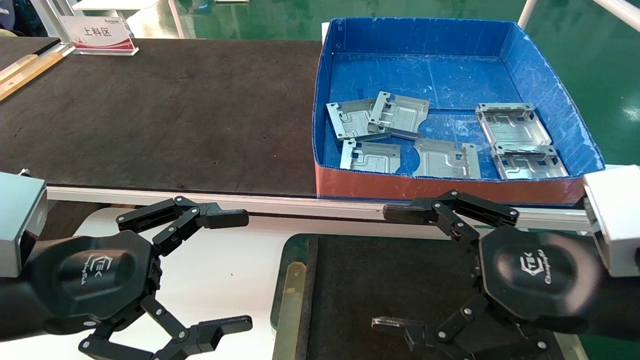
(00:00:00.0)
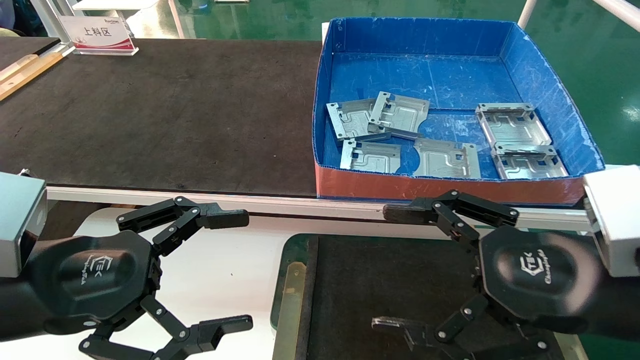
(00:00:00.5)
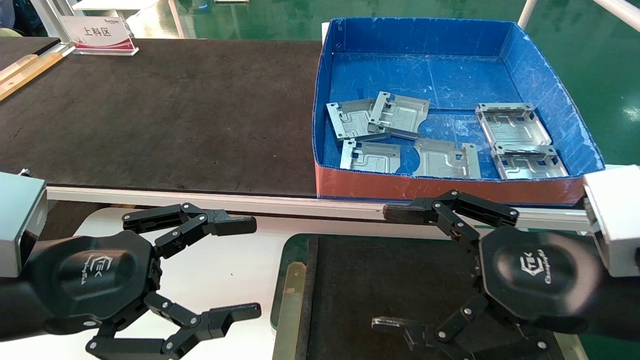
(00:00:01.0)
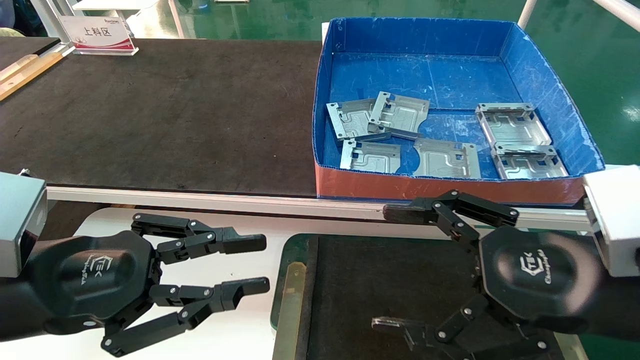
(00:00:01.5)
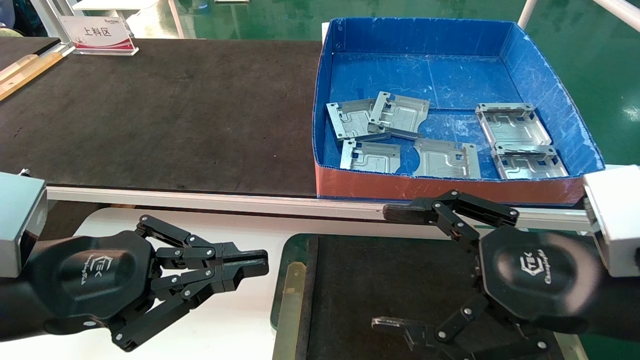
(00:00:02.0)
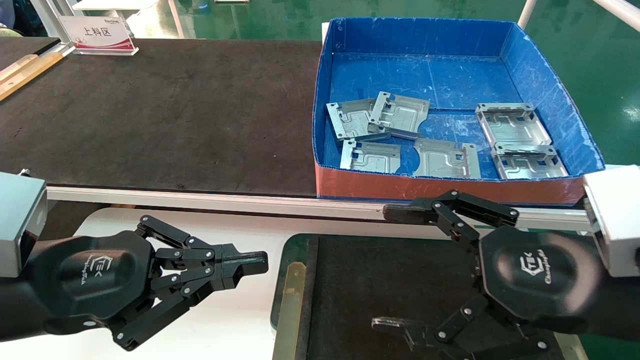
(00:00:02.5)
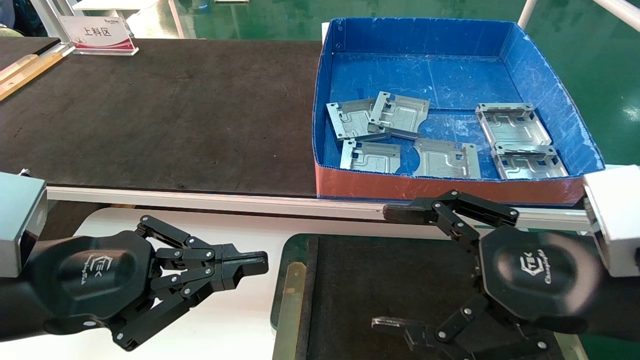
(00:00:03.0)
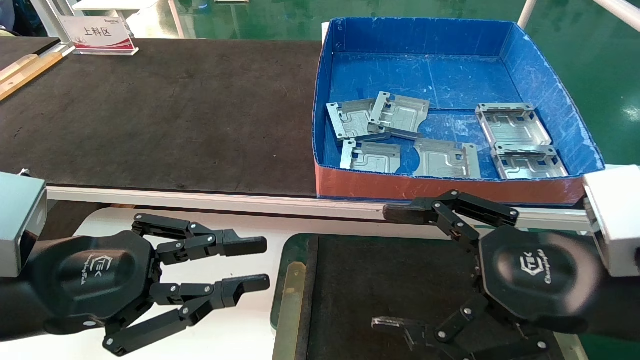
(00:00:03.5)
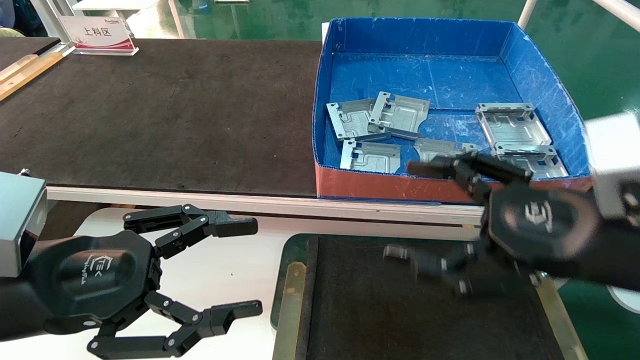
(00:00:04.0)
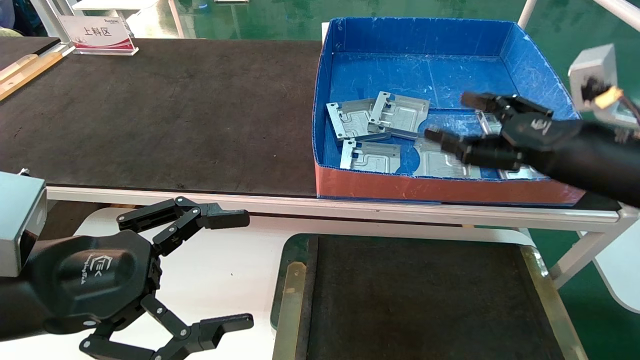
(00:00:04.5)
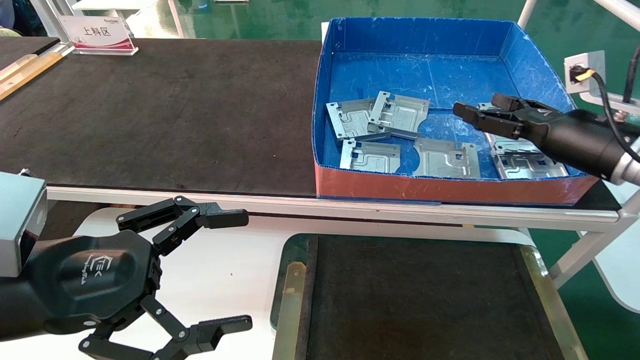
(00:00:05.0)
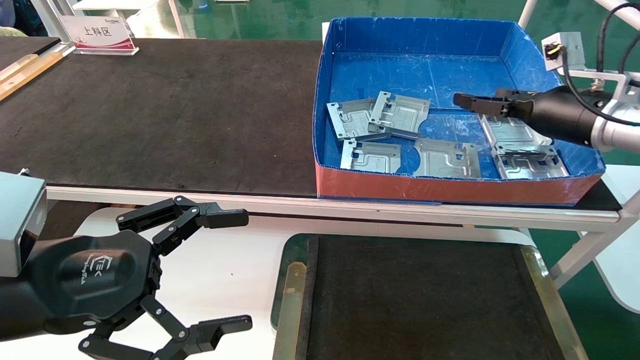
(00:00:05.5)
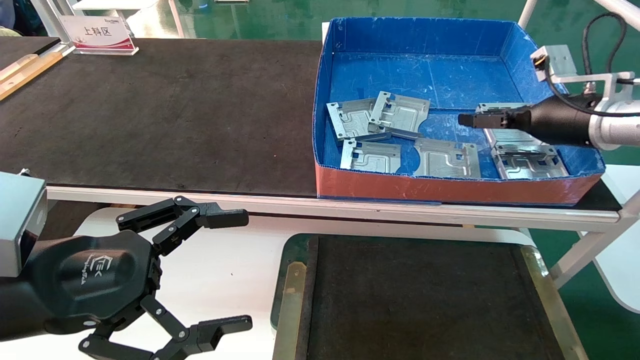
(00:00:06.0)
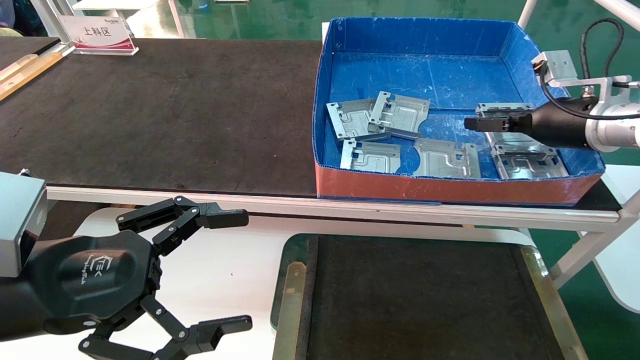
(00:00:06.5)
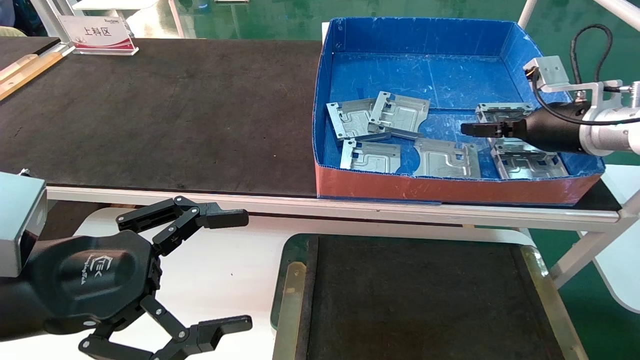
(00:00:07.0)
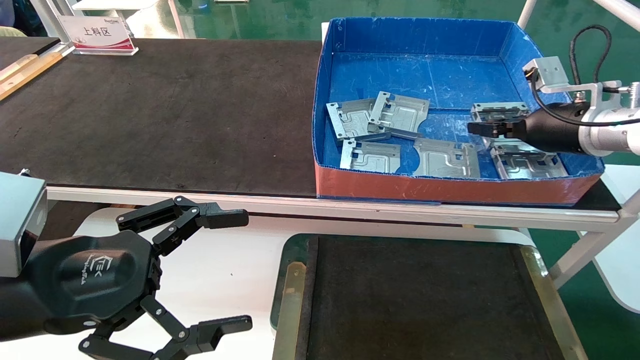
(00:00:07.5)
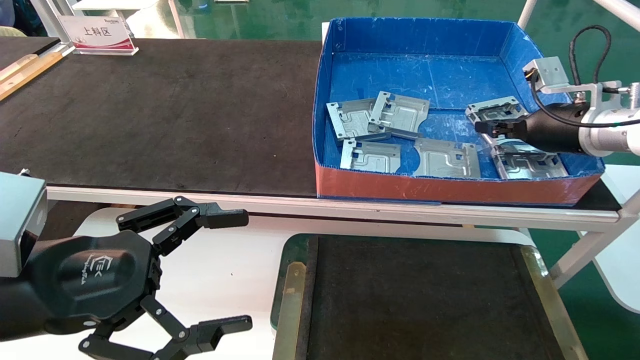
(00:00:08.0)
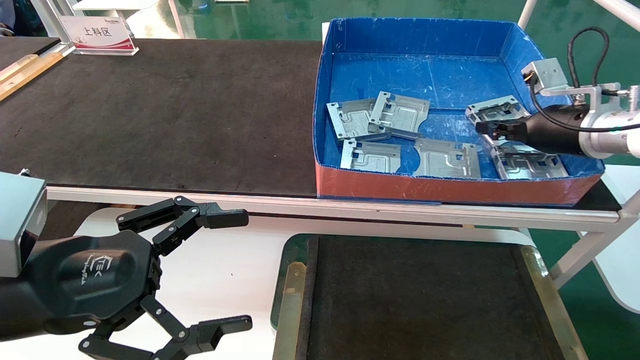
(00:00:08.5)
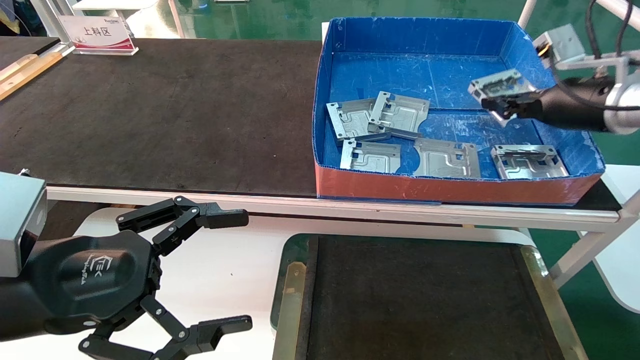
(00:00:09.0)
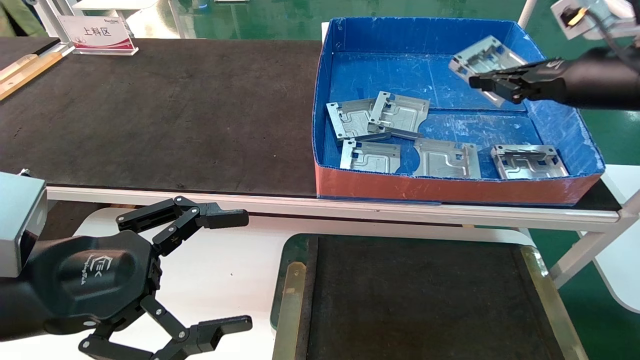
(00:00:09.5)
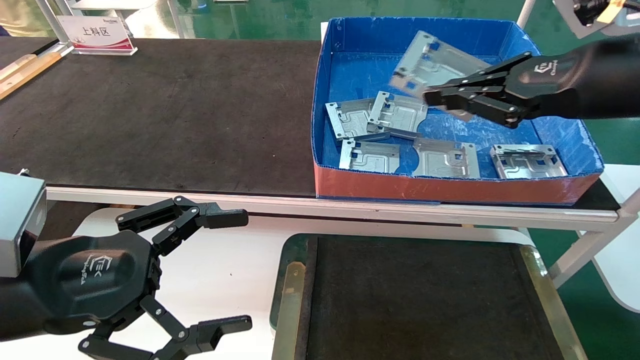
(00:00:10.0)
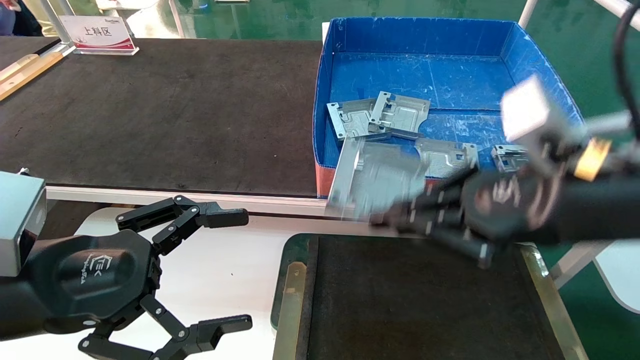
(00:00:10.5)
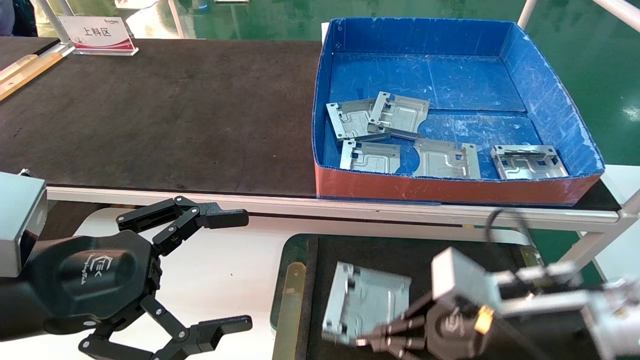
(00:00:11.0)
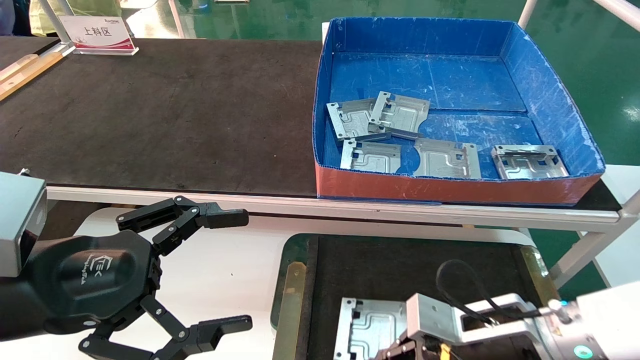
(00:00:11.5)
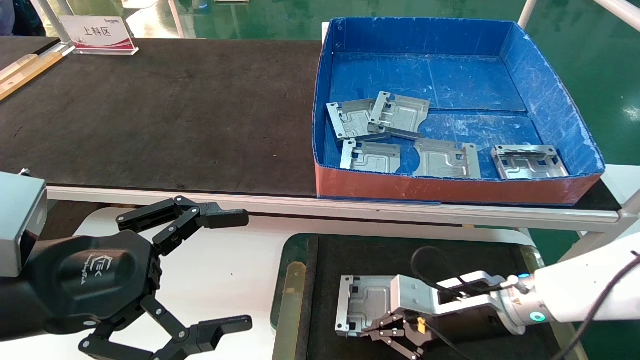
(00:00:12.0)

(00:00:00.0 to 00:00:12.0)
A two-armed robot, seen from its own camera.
Task of the whole recording: pick up parts and place them into a black container.
Step, 00:00:04.5 - 00:00:07.5: Pick up the hard drive bracket from the feeding area.
00:00:00.0 - 00:00:02.0: The left gripper closes its fingers.
00:00:02.0 - 00:00:04.0: The left gripper opens up.
00:00:04.0 - 00:00:06.0: The left gripper opens up. The right gripper moves forward and to the right, about 25 cm.
00:00:06.0 - 00:00:08.0: The right gripper closes.
00:00:08.0 - 00:00:10.0: The right gripper shifts about 20 cm backward and upward.
00:00:10.0 - 00:00:12.0: The right gripper travels downward by about 30 cm.

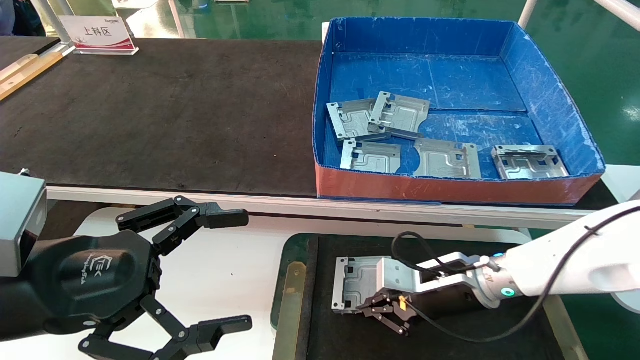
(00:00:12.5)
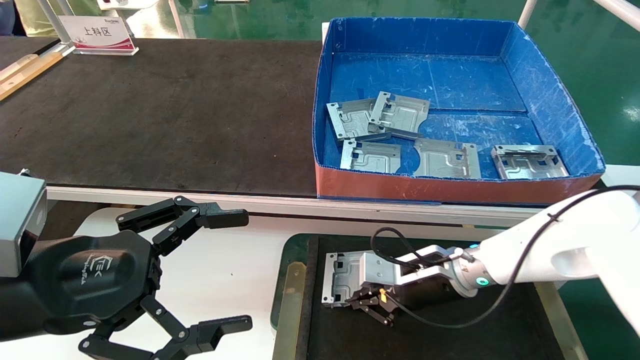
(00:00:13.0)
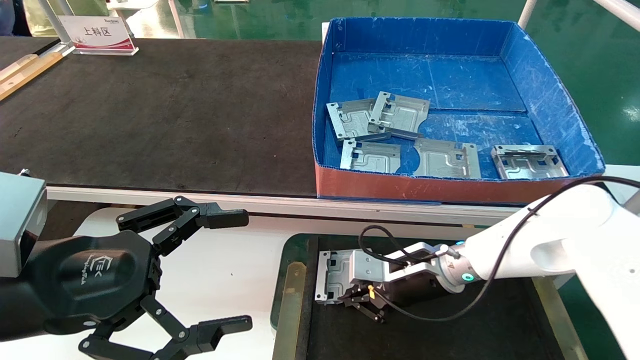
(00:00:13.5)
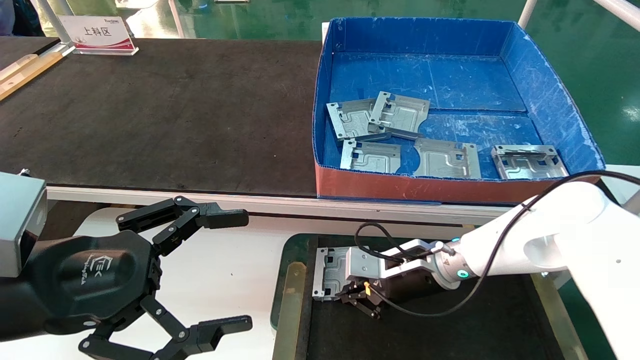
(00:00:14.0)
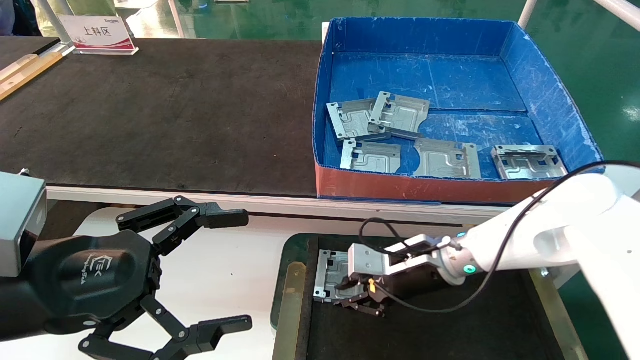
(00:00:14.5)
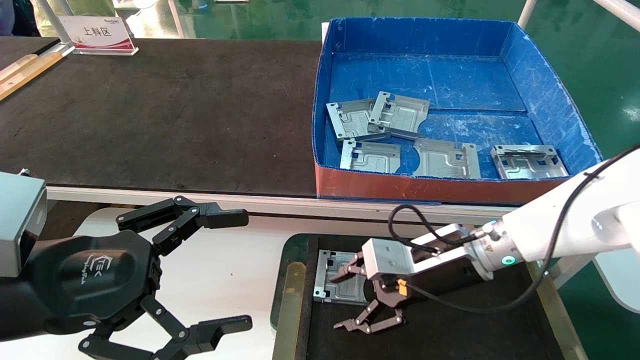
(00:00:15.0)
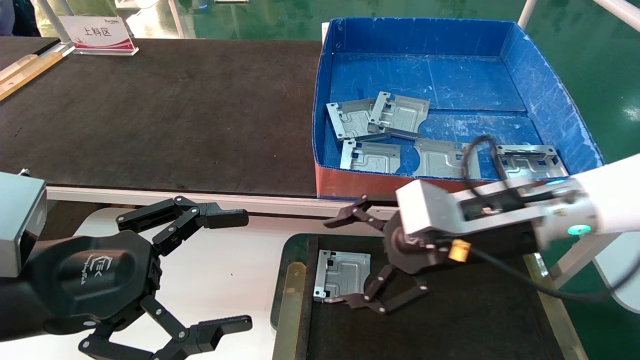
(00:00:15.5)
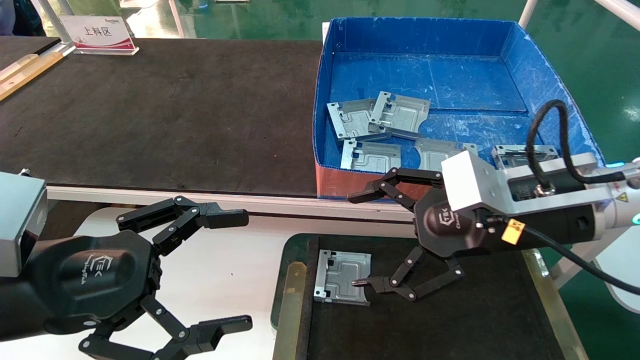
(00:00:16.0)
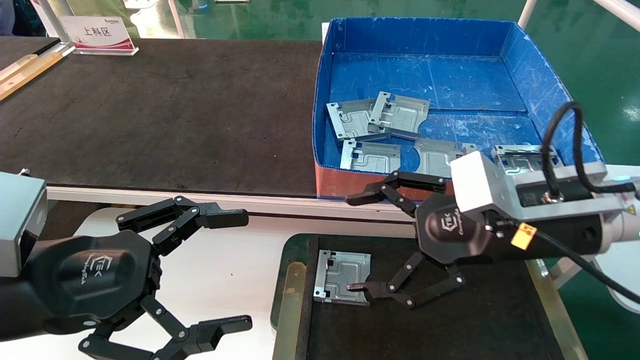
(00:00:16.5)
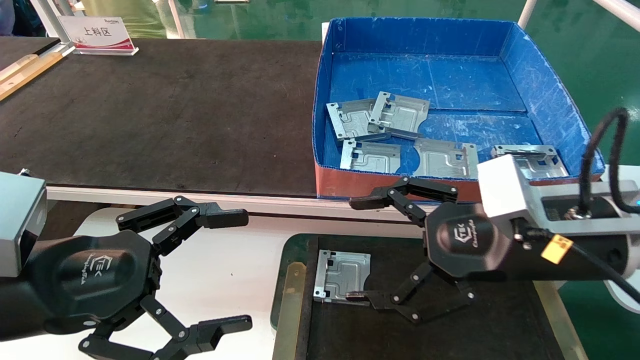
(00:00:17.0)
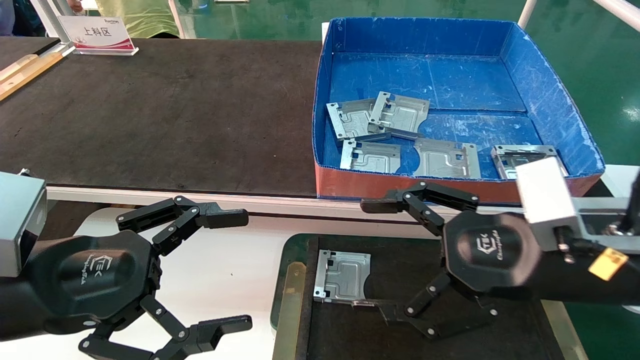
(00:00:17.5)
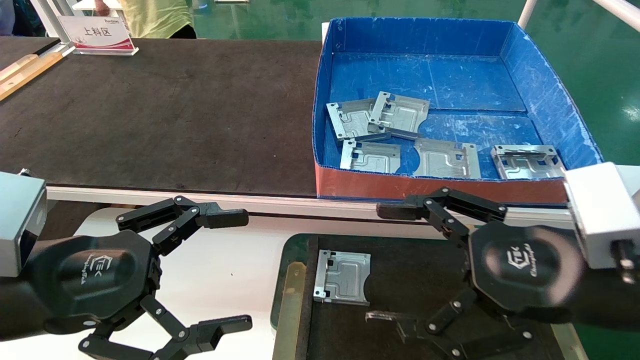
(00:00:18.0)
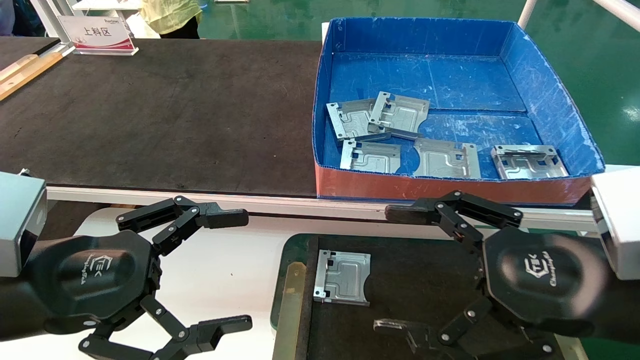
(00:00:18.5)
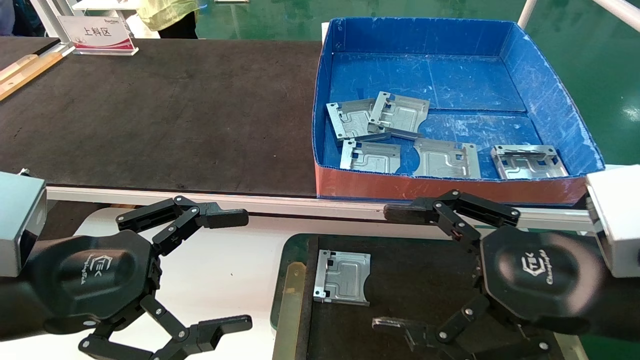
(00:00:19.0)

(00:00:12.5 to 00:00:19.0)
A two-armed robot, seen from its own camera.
Task of the whole recording: pick up parts and place them into a black container.
00:00:12.5 - 00:00:14.5: The grippers stay close to where they were, moving slightly.
00:00:14.5 - 00:00:17.0: The right gripper is displaced backward, upward and to the right by about 20 cm, and opens.
00:00:17.0 - 00:00:19.0: The right gripper shifts approximately 5 cm backward.
